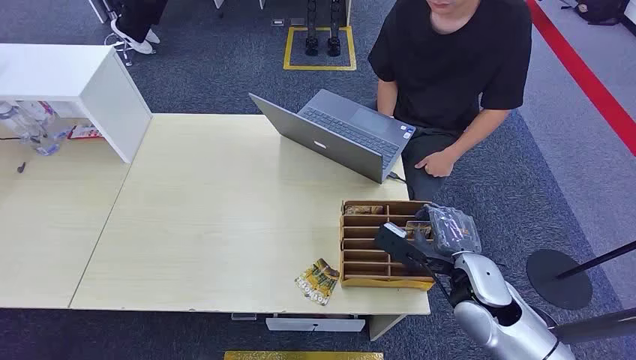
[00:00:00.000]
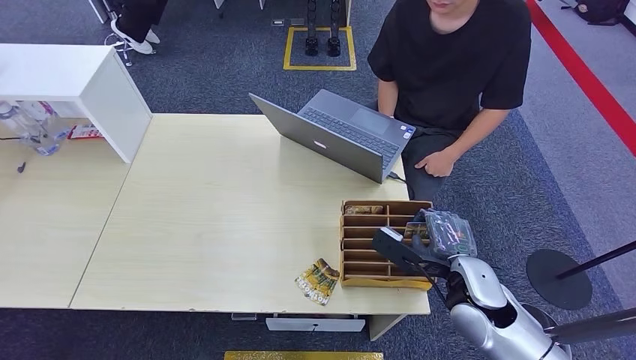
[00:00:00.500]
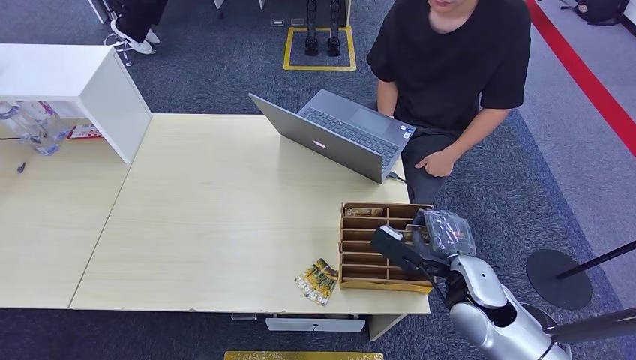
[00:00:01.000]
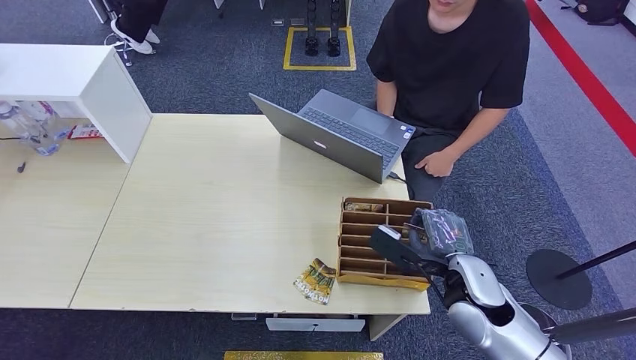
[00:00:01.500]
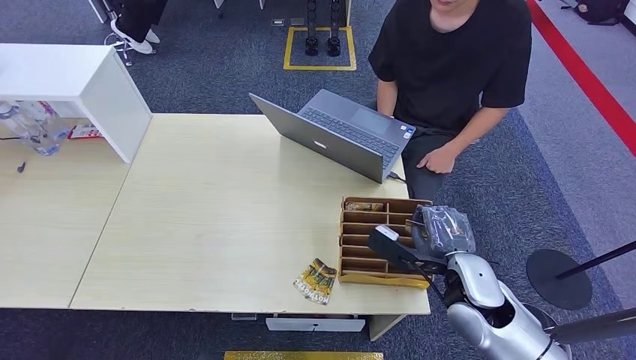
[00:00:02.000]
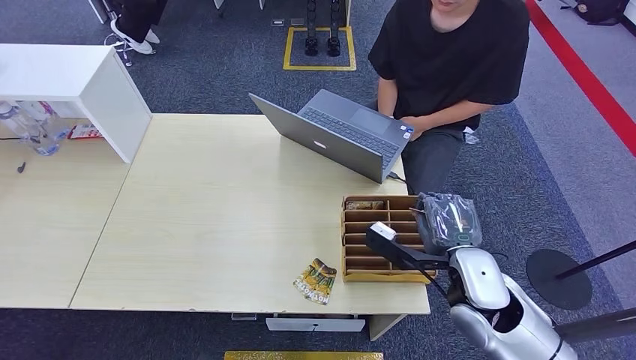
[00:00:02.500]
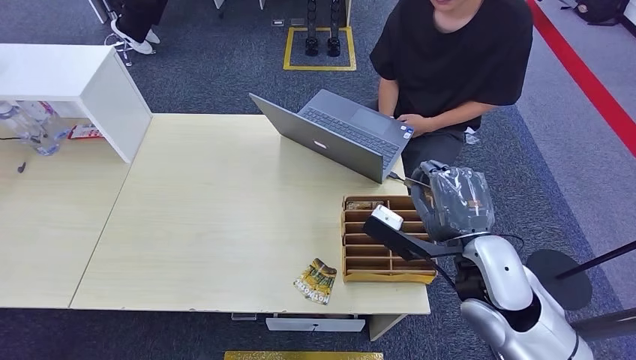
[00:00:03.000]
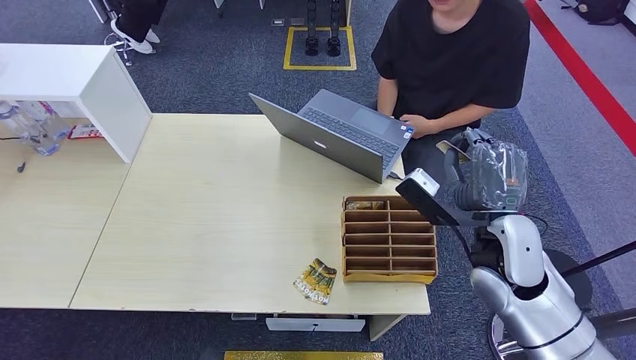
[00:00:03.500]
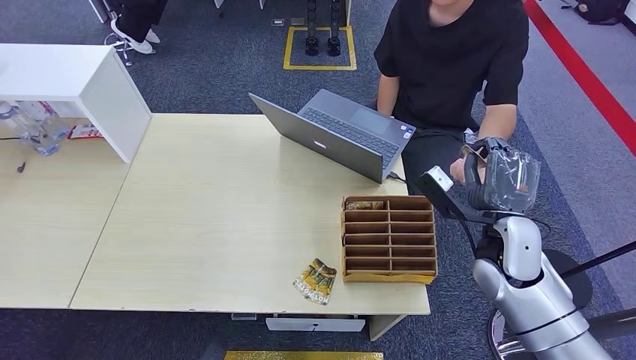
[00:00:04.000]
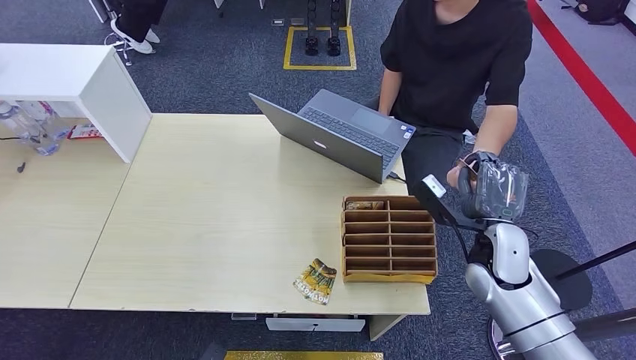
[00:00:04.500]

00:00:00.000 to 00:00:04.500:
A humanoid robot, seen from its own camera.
Step, 00:00:00.000 to 00:00:02.500: Pick up the key card from the card box.
Step, 00:00:03.000 to 00:00:04.500: Hand the key card to the target.
00:00:02.000 to 00:00:04.500: The right hand moves to the right and forward, roughly 10 cm, and travels upward and back again, about 10 cm each way.
